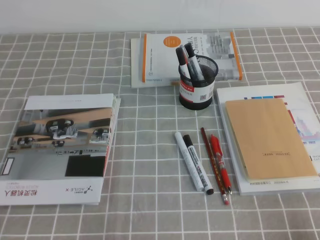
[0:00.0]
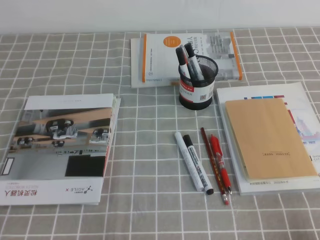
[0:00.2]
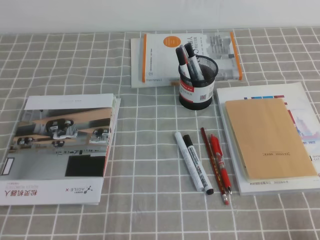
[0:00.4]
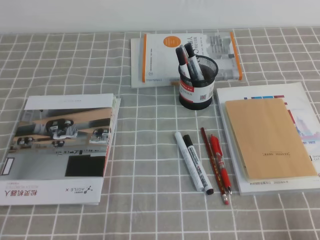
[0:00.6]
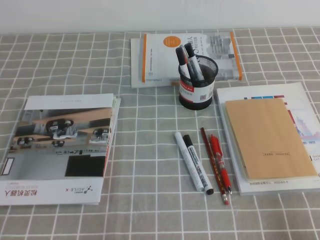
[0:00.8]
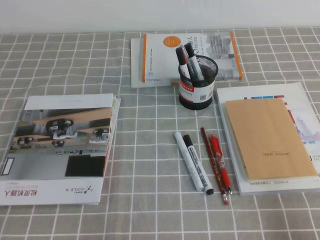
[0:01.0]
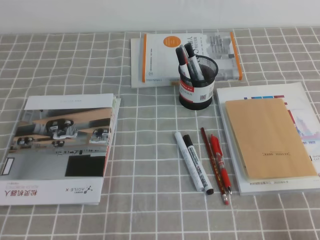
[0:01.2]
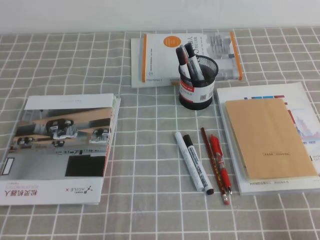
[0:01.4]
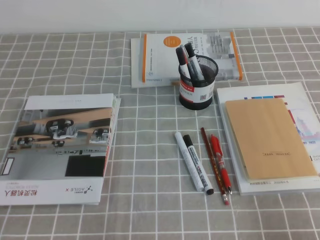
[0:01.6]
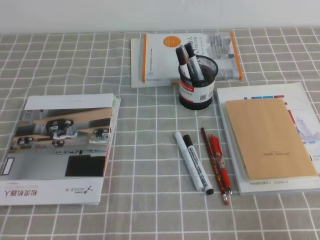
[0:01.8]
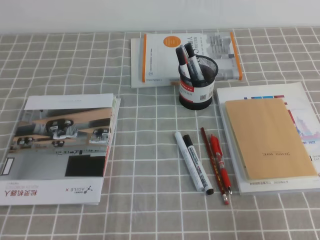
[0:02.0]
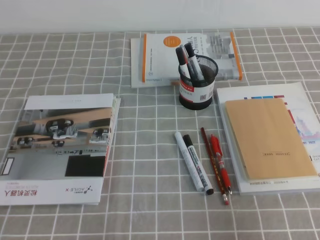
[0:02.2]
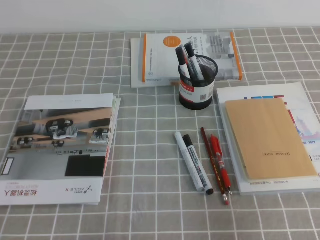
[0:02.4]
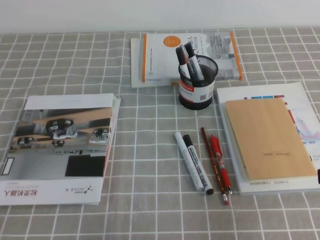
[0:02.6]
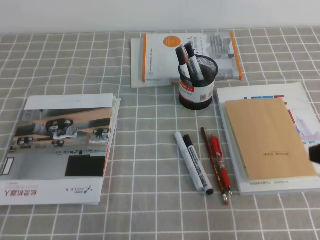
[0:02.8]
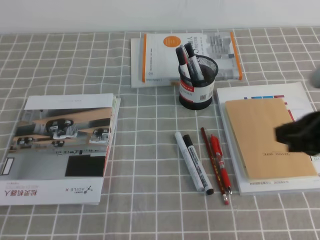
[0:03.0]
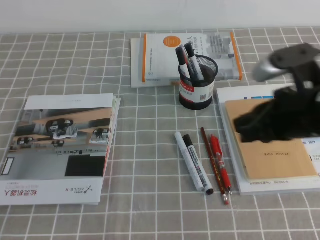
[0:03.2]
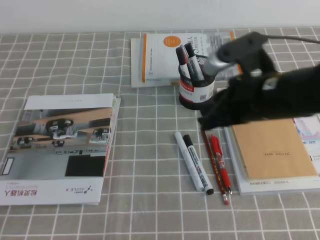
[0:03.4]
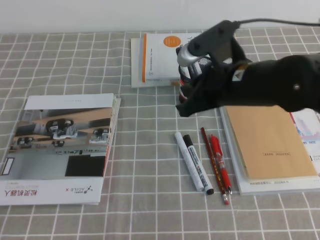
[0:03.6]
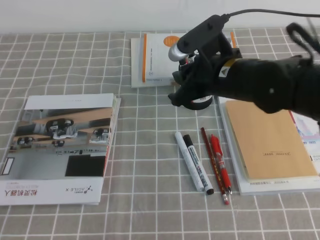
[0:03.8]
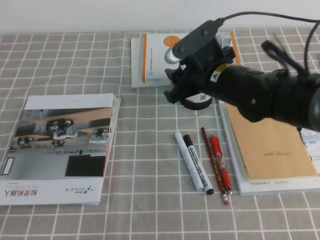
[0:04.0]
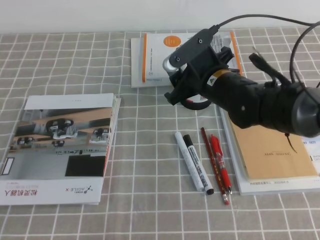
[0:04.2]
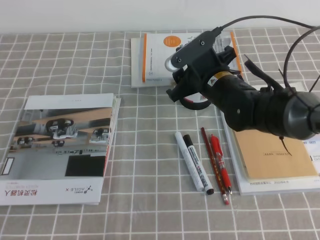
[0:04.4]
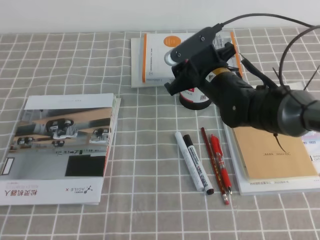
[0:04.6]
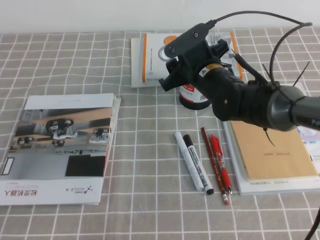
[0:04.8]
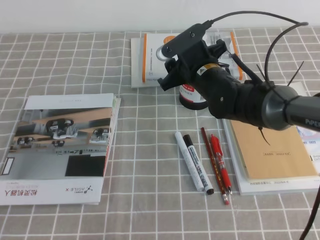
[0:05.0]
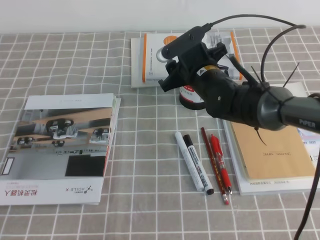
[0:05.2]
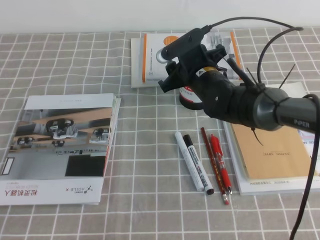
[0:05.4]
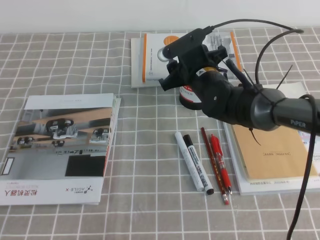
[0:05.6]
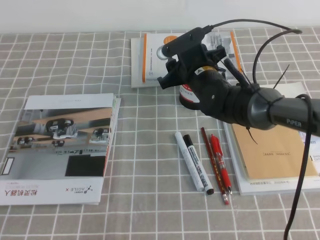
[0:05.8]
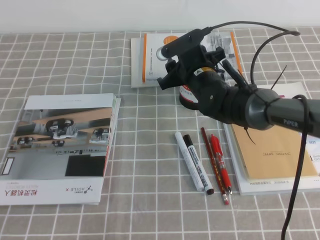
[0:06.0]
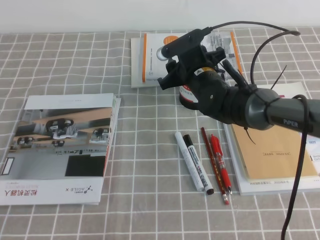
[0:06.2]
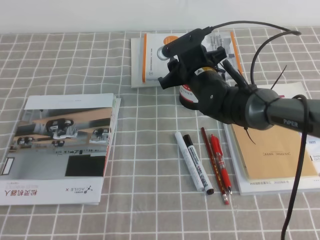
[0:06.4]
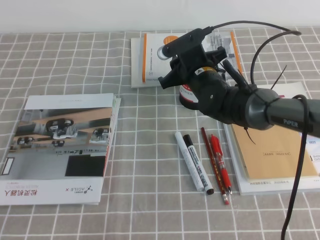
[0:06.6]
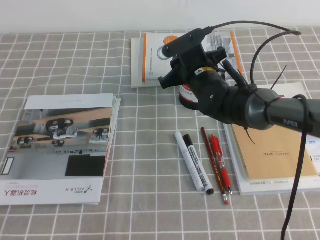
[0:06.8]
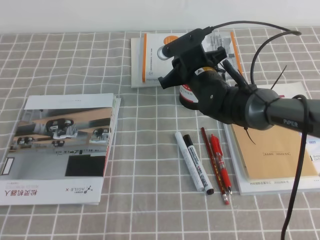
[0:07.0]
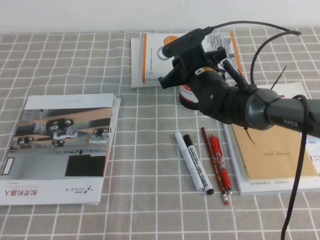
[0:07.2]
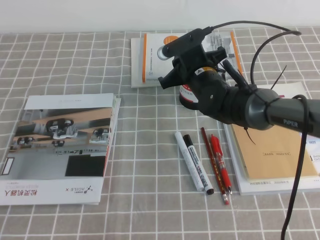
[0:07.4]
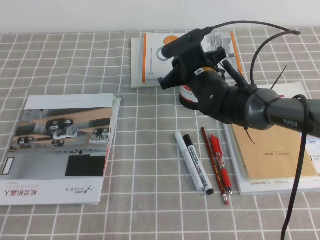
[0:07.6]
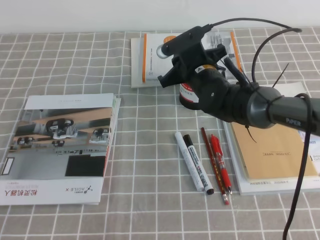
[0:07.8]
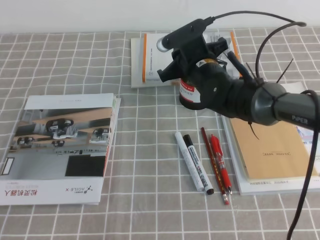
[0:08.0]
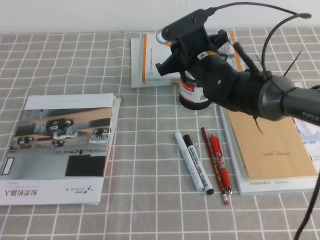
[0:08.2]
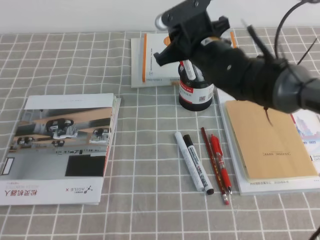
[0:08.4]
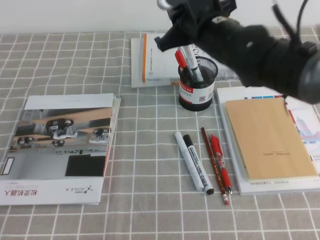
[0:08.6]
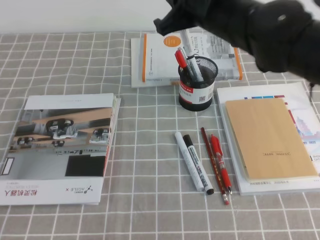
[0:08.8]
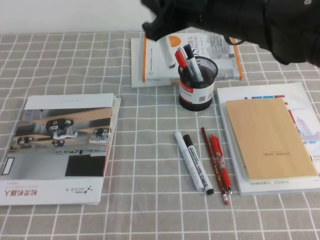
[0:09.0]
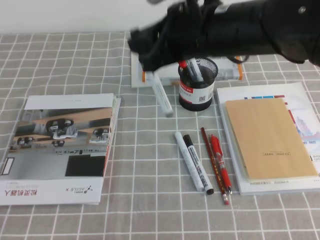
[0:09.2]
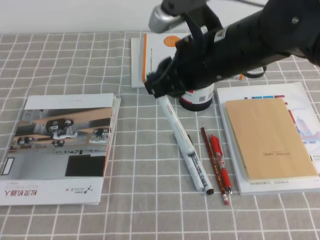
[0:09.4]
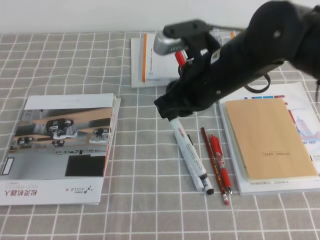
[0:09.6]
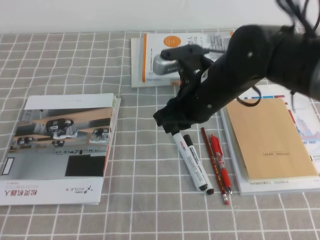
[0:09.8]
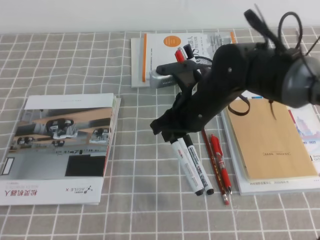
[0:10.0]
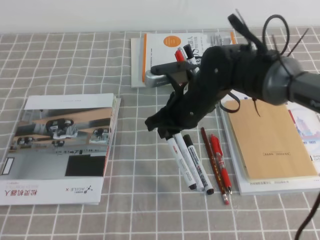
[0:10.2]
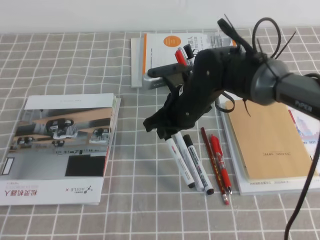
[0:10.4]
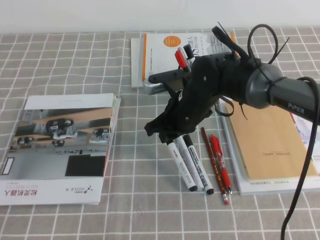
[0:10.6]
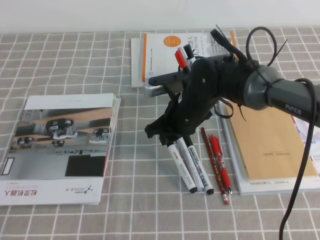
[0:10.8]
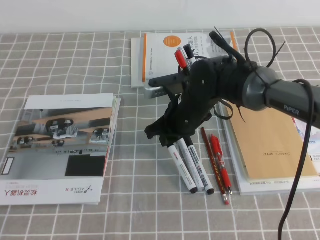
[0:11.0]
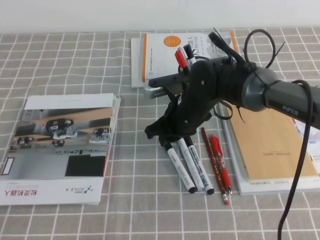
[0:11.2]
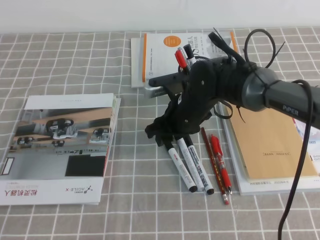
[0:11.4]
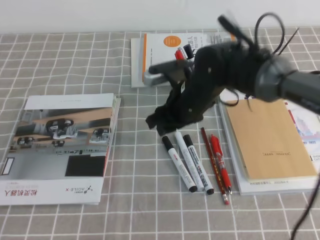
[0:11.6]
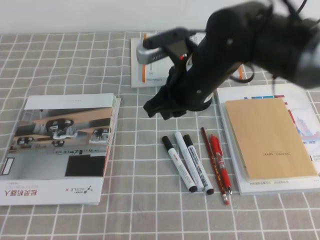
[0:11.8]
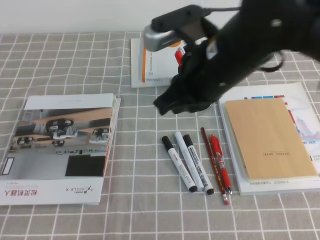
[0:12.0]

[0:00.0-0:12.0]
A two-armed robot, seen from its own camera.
0:01.6 to 0:03.0: The right gripper travels forward, upward and to the left by roughly 20 cm.
0:03.0 to 0:04.4: The right gripper moves forward, to the left and downward, some 25 cm, and opens its fingers.
0:04.4 to 0:06.0: The right gripper shifts by some 5 cm.
0:06.0 to 0:07.6: The right gripper closes its fingers.
0:07.6 to 0:09.0: The right gripper travels upward and backward by roughly 20 cm.
0:09.0 to 0:10.4: The right gripper is displaced downward by approximately 15 cm.
0:10.4 to 0:12.0: The right gripper moves upward and backward, about 15 cm, and opens, then closes again.

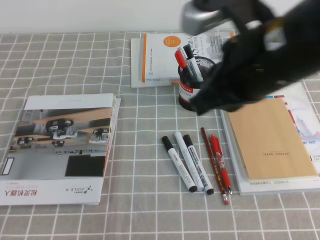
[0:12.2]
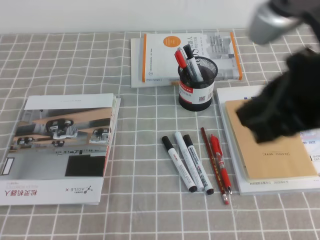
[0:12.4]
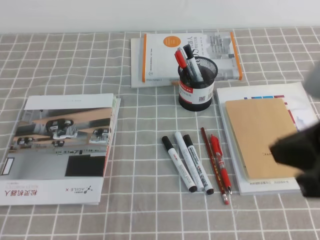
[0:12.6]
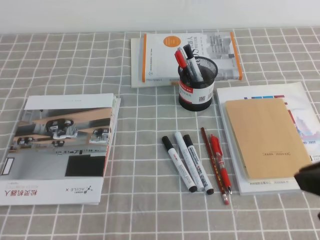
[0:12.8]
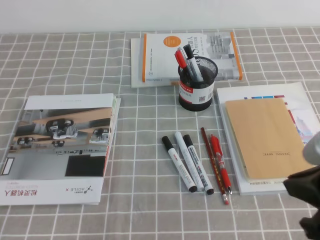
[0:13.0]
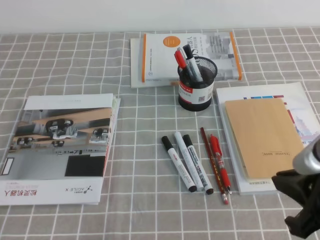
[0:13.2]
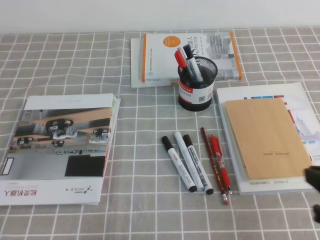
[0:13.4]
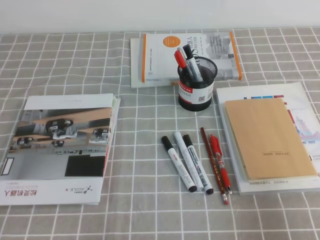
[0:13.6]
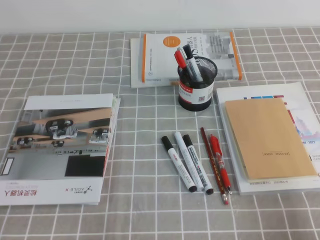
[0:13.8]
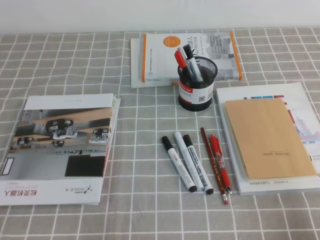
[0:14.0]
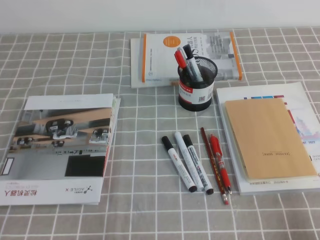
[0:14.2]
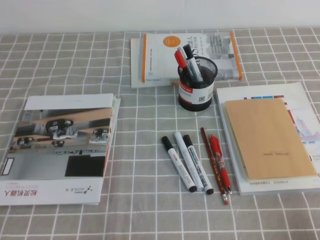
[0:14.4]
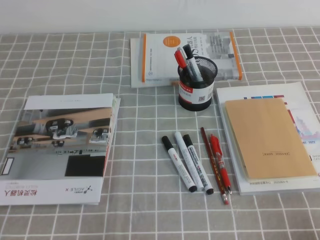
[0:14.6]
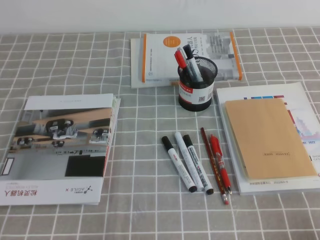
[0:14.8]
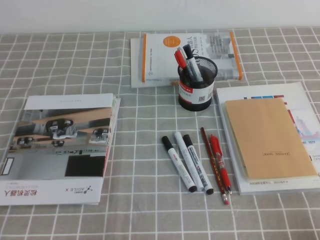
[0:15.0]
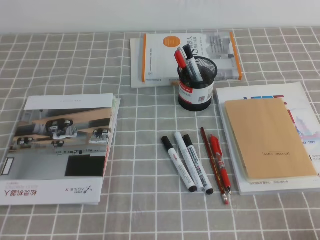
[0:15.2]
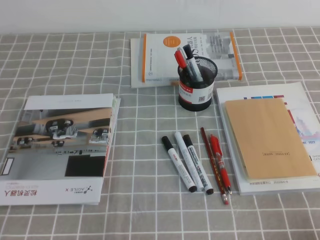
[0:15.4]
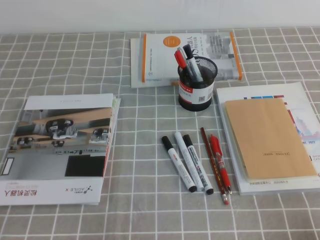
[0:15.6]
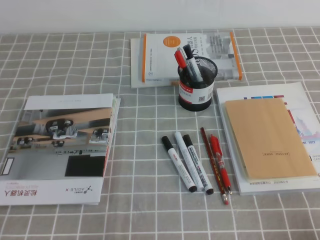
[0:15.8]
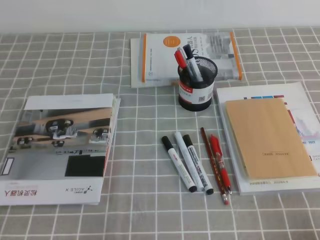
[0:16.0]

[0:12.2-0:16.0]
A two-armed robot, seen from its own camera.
Step, 0:12.2 to 0:16.0: Pick up the pen from the pen holder.
0:12.2 to 0:13.4: The right gripper heads to the right, downward and backward, covering roughly 20 cm.
0:13.4 to 0:14.8: The right gripper heads downward, backward and to the right, covering about 15 cm.
0:14.8 to 0:16.0: The two grippers keep their place.

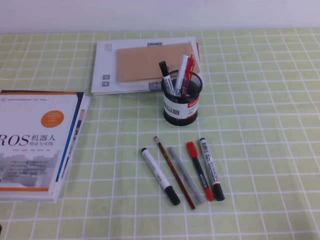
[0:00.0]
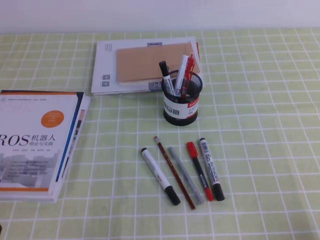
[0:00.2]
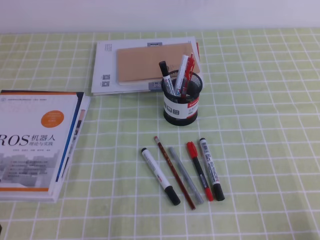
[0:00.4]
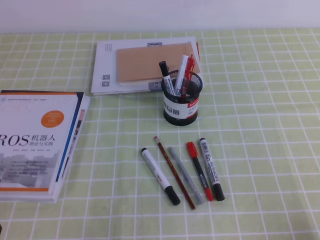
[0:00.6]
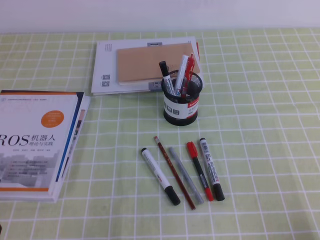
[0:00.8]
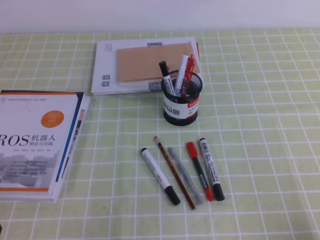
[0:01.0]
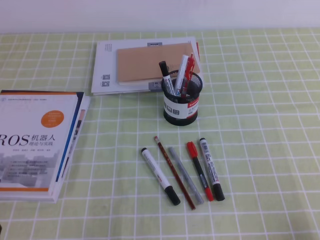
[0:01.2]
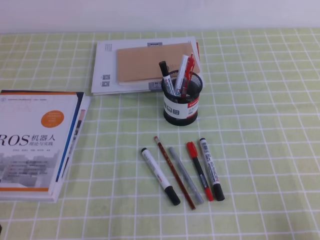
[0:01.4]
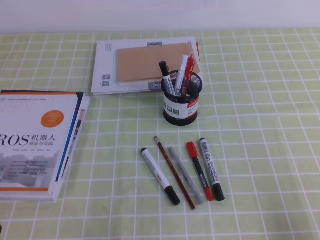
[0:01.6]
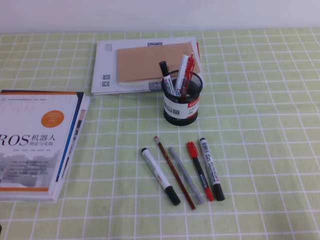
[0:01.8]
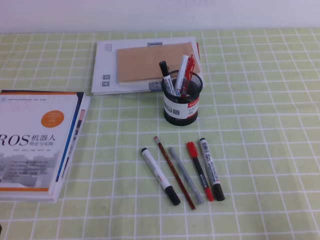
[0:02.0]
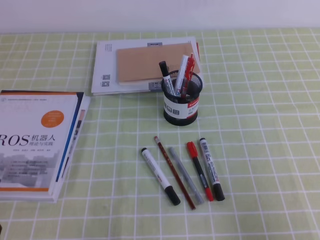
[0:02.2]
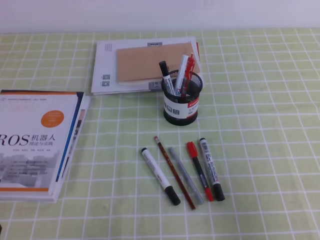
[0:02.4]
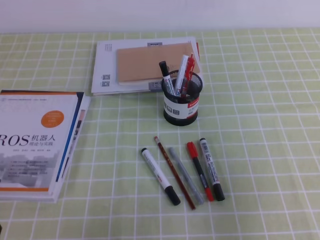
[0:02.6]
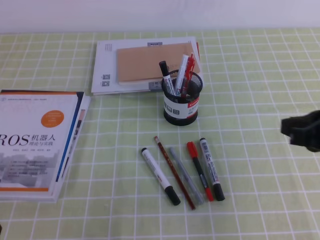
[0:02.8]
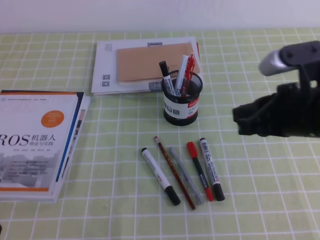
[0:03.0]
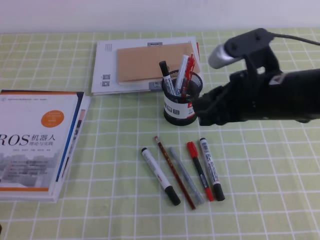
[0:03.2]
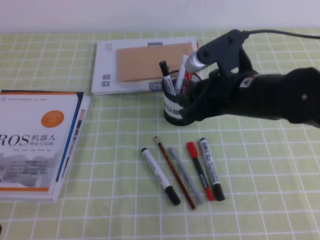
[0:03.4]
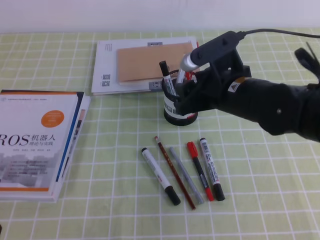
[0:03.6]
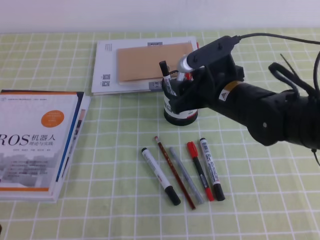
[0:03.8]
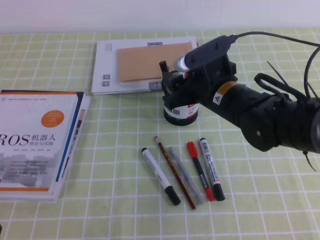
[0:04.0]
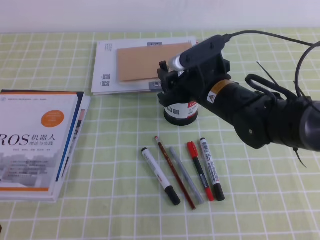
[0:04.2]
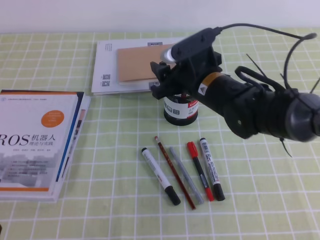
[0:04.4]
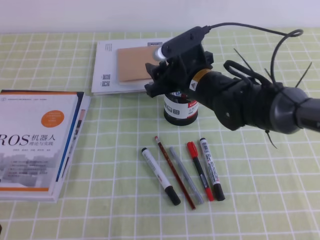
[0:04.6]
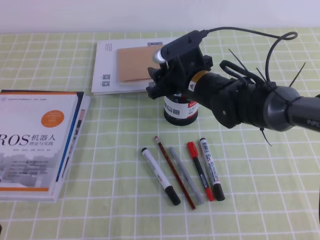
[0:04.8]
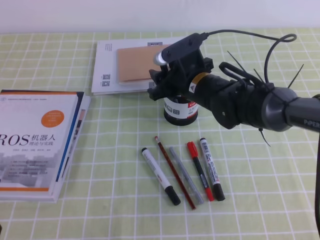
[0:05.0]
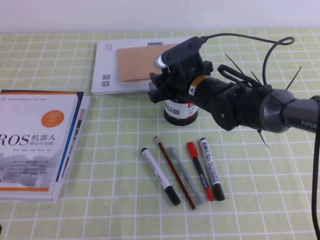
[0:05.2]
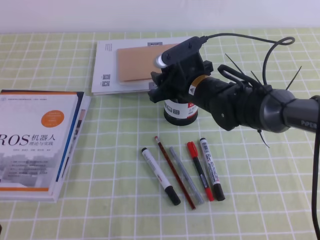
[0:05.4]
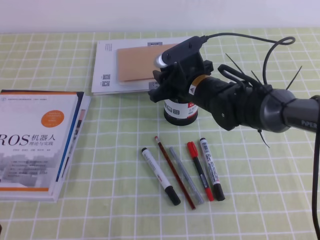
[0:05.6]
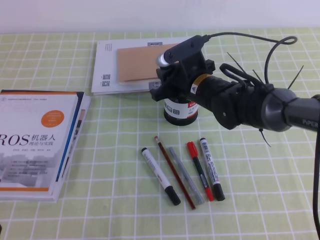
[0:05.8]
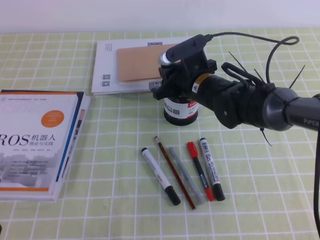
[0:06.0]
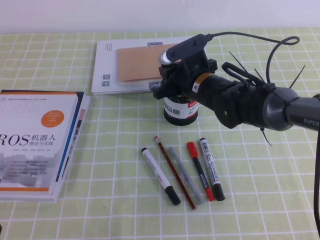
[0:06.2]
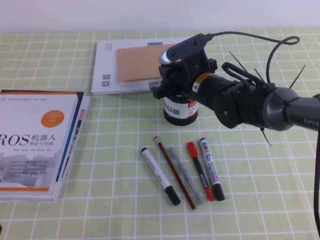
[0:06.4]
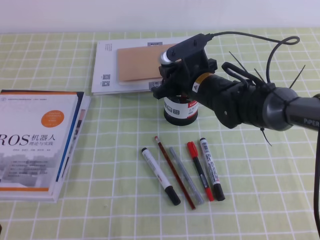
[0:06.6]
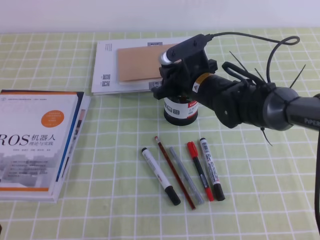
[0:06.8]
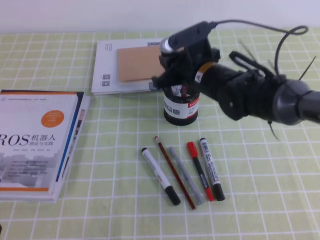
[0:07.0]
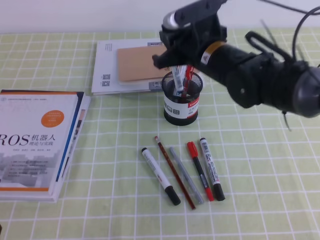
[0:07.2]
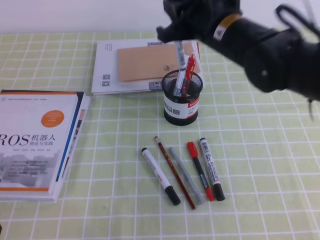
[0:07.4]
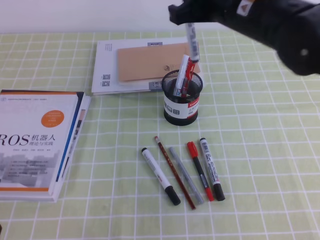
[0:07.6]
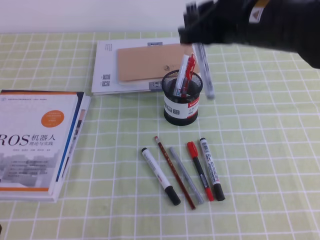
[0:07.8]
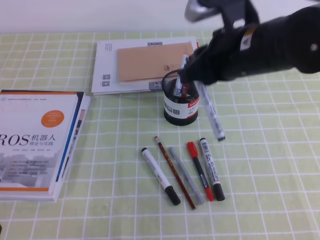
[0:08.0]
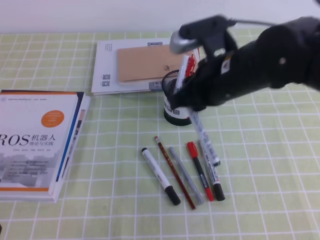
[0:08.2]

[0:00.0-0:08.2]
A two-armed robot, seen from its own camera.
0:01.6 to 0:03.2: The right gripper shifts approximately 30 cm forward, to the left and upward, and opens its fingers.
0:03.2 to 0:05.0: The right gripper moves forward, to the left and downward, roughly 20 cm, and opens its fingers.
0:05.0 to 0:06.6: The right gripper closes up.
0:06.6 to 0:08.2: The right gripper moves upward and backward, approximately 15 cm.
